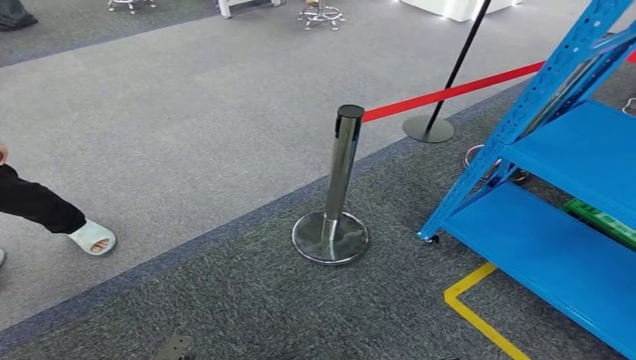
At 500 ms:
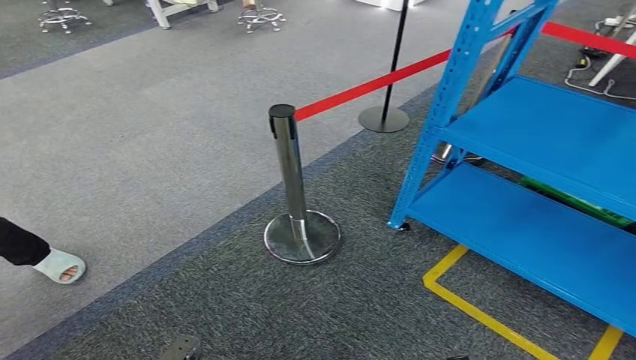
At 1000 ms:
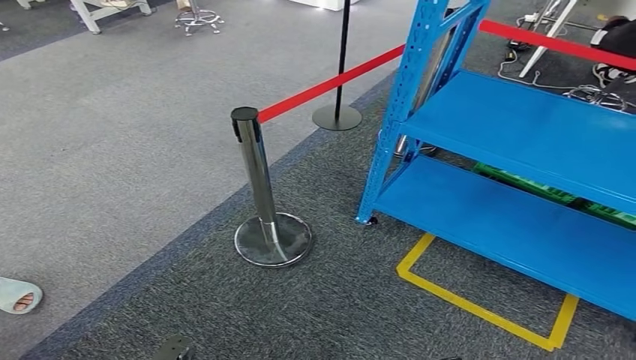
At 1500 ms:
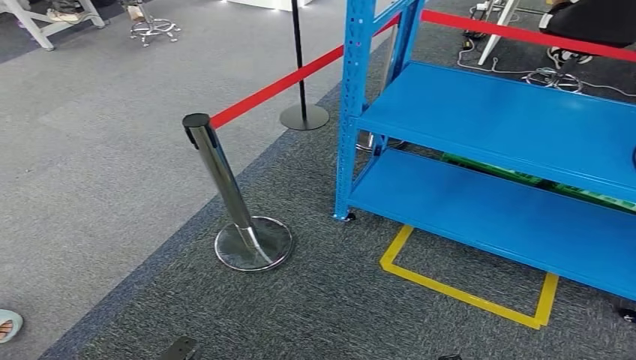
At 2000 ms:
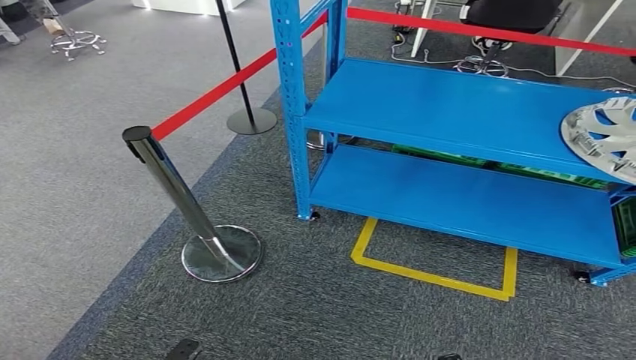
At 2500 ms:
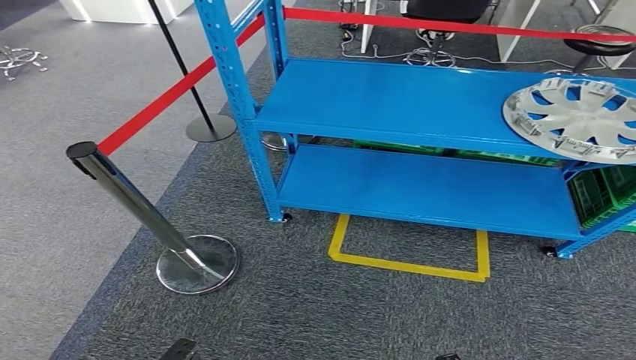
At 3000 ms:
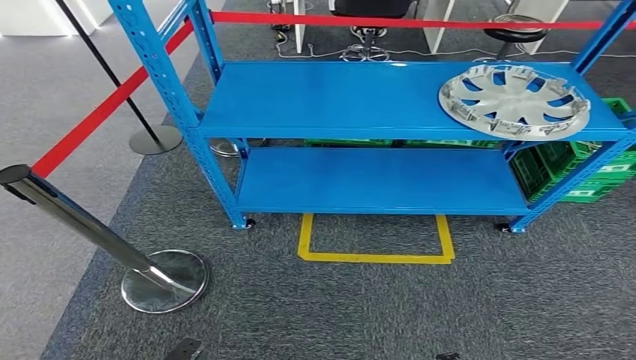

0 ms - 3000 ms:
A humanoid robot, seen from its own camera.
Step, 0 ms - 3000 ms: Move to the initial position at the workbench.
